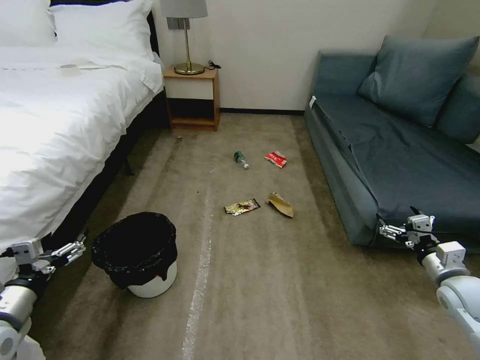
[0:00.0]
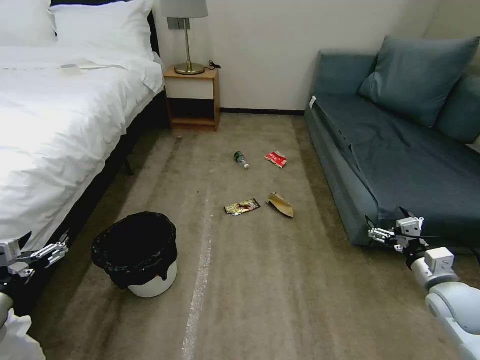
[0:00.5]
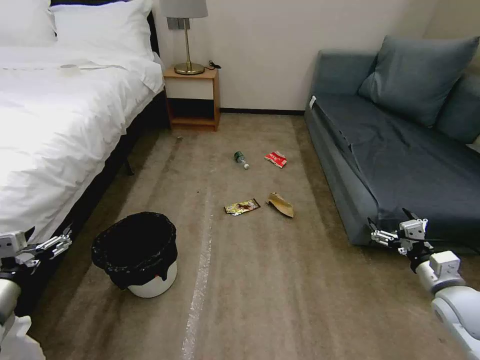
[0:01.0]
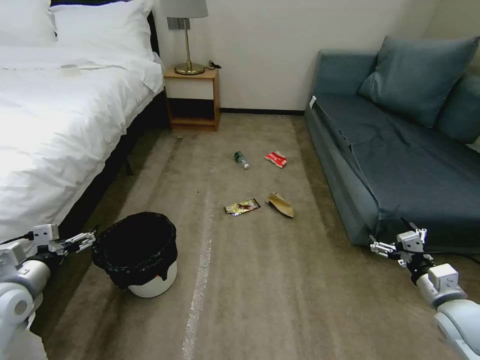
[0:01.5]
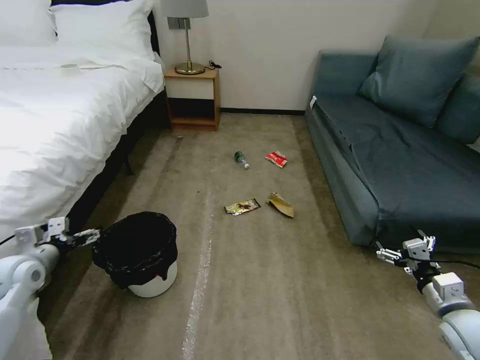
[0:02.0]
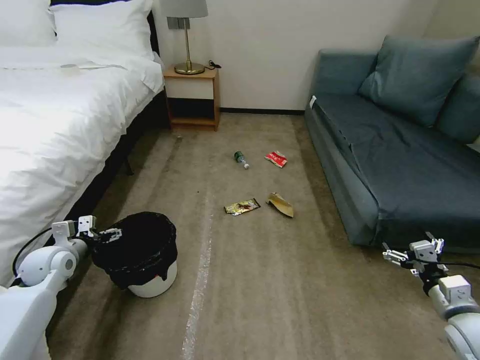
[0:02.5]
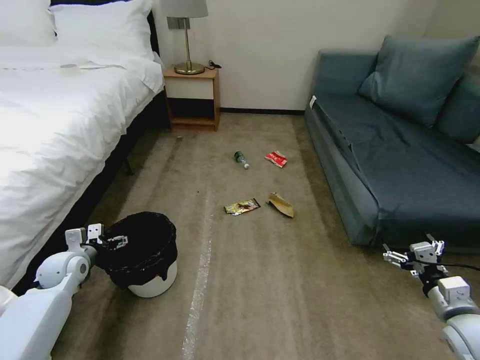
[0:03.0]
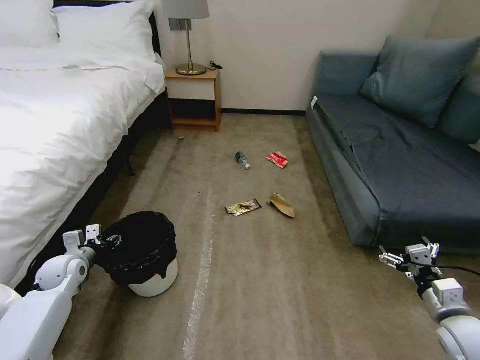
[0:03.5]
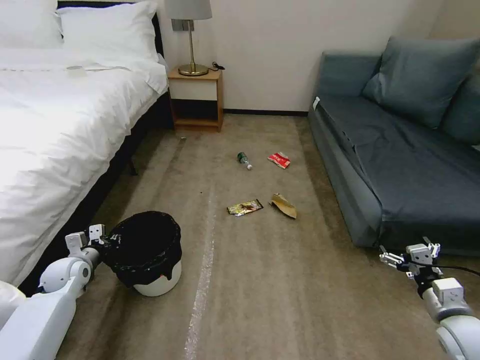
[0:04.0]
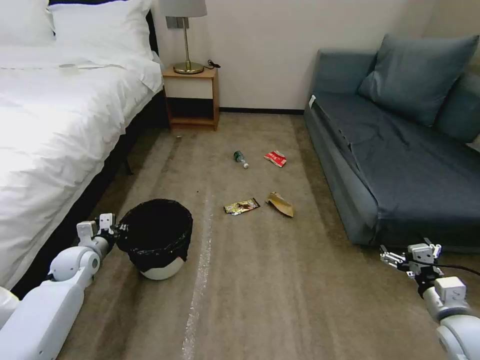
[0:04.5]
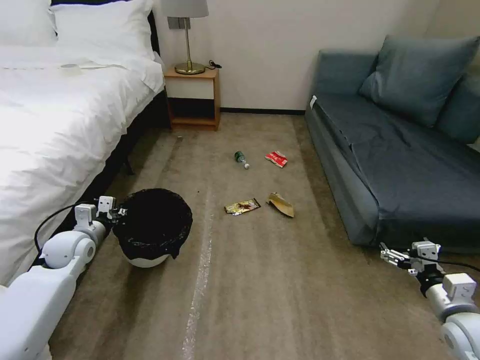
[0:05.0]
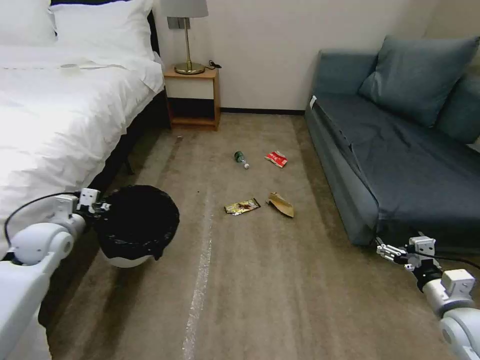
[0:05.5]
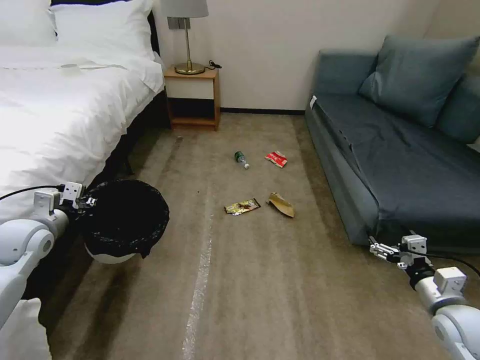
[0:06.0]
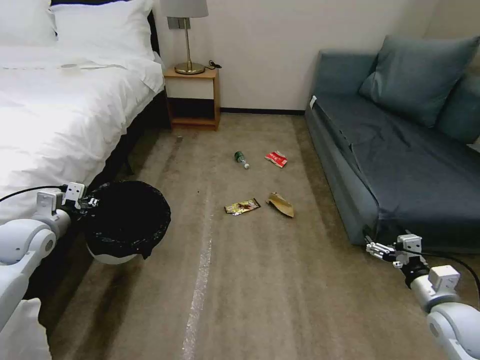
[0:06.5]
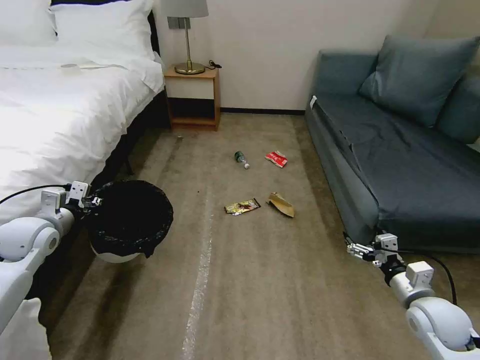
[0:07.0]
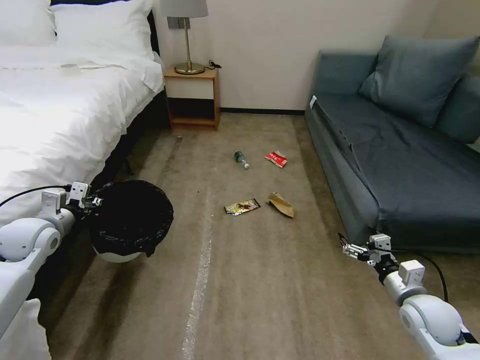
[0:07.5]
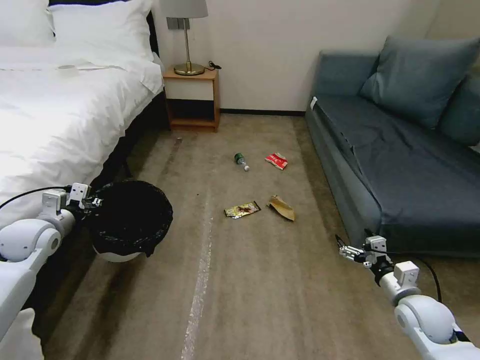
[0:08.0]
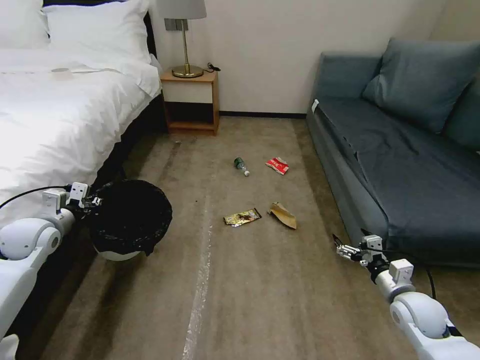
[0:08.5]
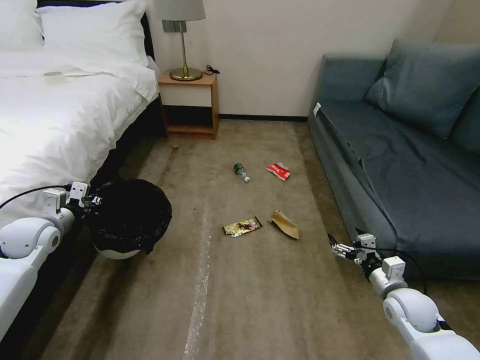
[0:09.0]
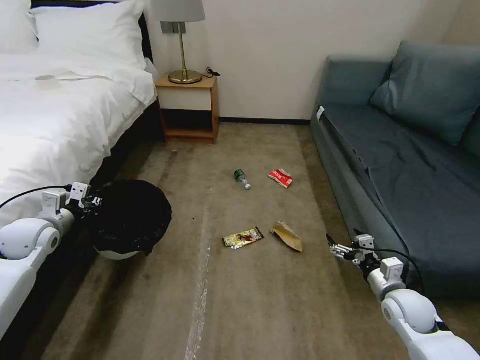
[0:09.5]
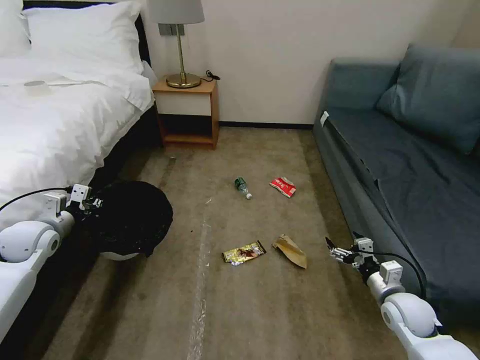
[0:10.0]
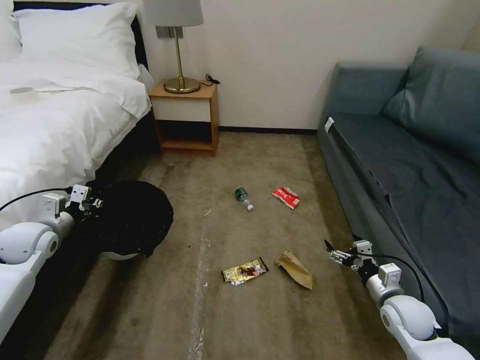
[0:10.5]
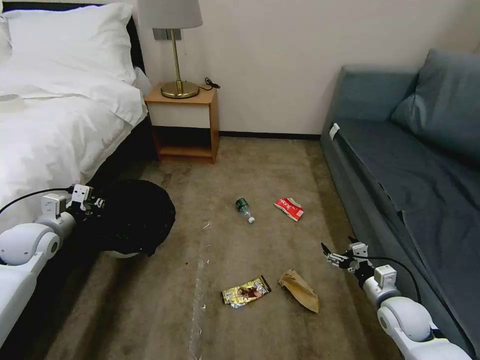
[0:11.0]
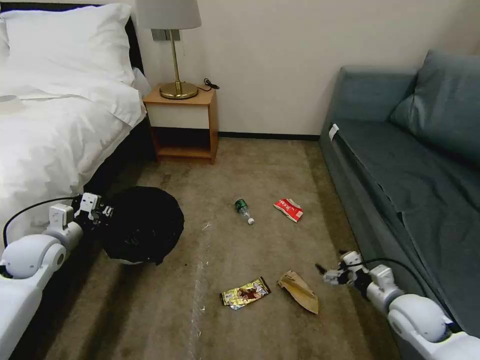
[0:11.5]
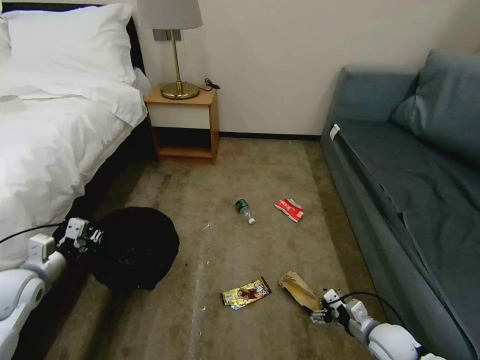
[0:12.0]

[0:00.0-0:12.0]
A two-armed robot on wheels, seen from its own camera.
Task of the whole recording: Pick up the trash bin, then pick up the garbage on the floor and place it into the trash bin.
0:02.0 to 0:04.0: The left gripper travels downward and forward by approximately 10 cm, and closes.
0:04.0 to 0:06.0: The left gripper heads upward, covering approximately 15 cm.
0:06.0 to 0:08.0: The right gripper shifts by approximately 5 cm.
0:10.0 to 0:12.0: The left gripper moves backward, some 10 cm. The right gripper travels downward by roughly 5 cm.

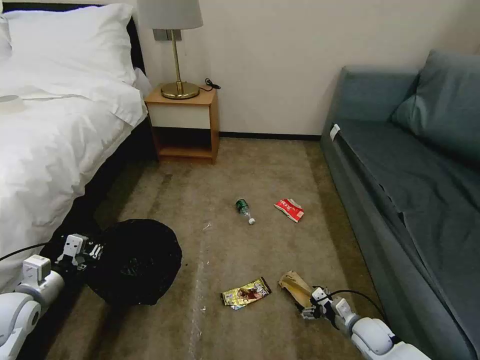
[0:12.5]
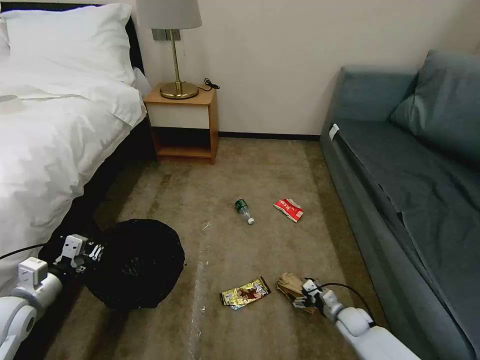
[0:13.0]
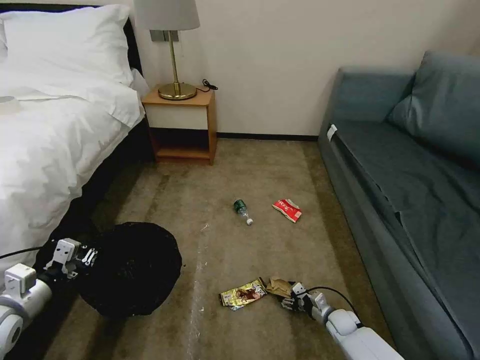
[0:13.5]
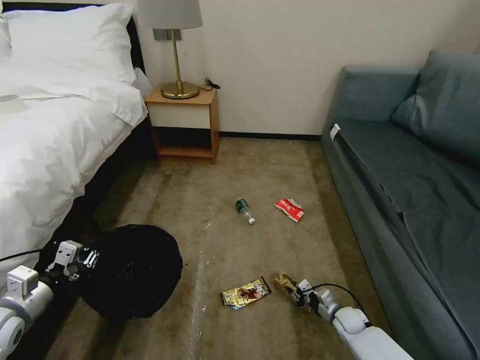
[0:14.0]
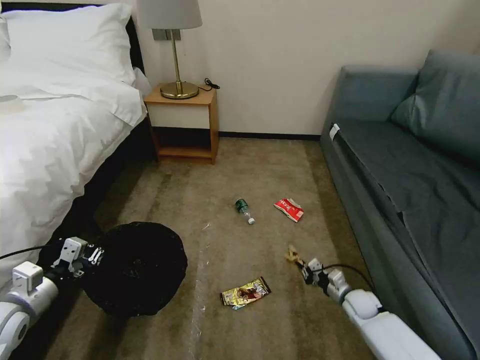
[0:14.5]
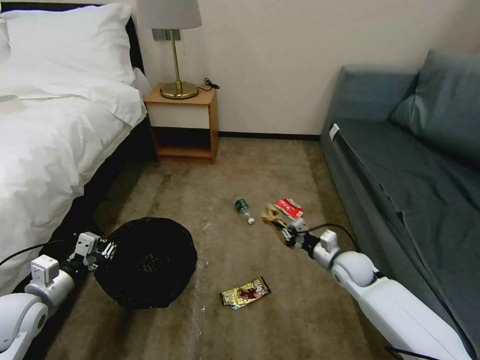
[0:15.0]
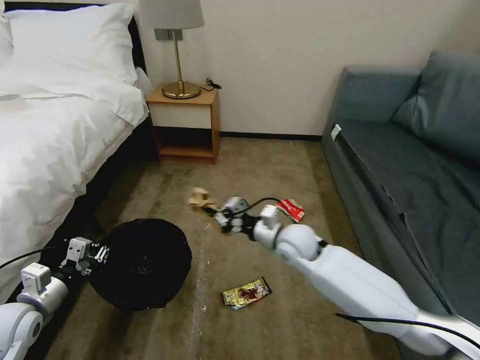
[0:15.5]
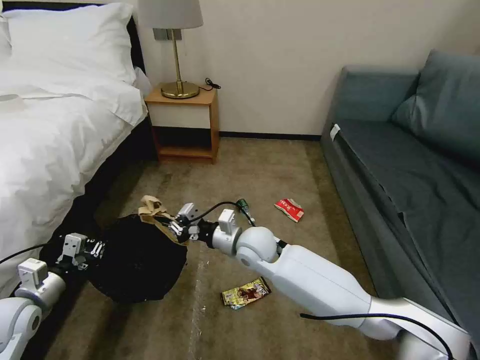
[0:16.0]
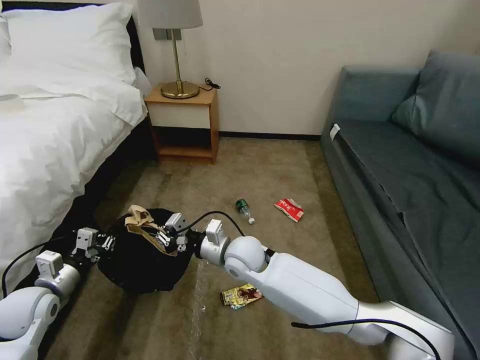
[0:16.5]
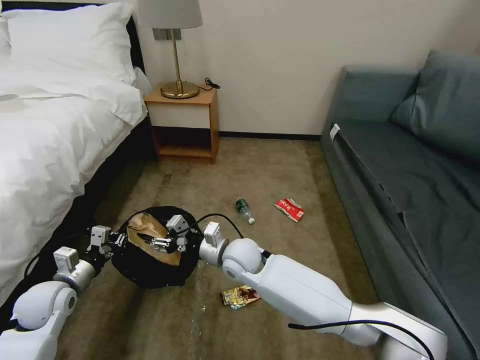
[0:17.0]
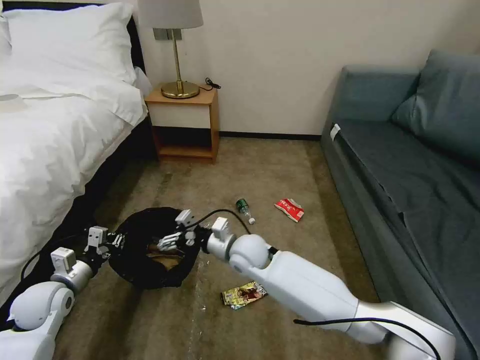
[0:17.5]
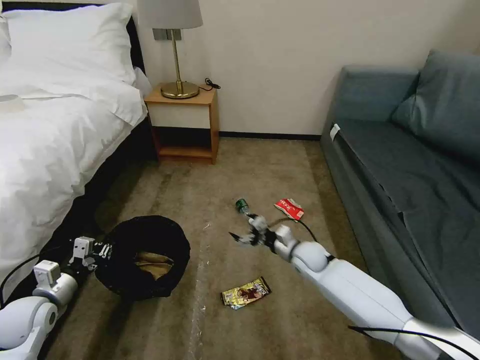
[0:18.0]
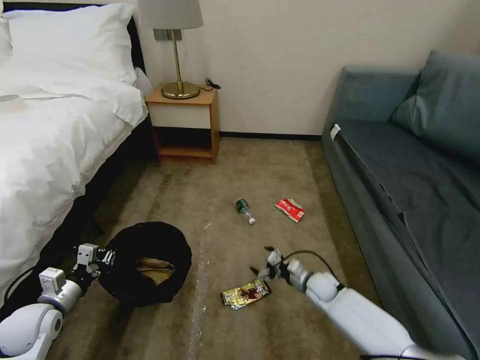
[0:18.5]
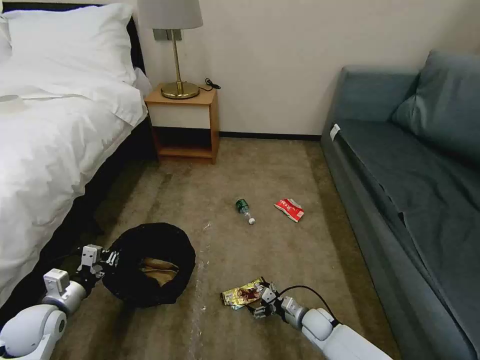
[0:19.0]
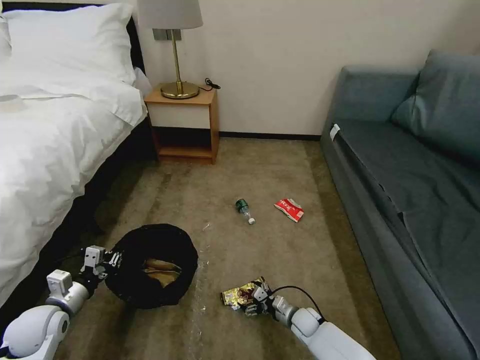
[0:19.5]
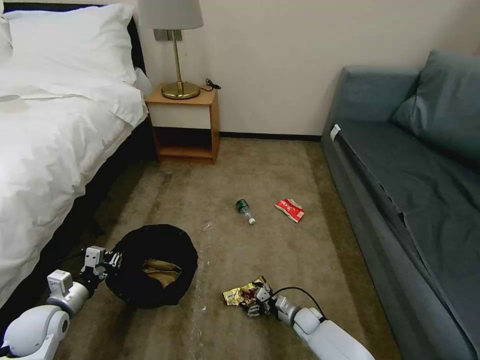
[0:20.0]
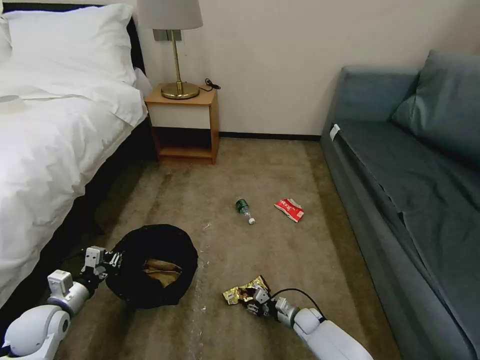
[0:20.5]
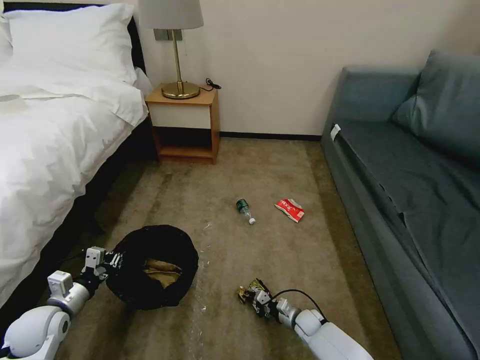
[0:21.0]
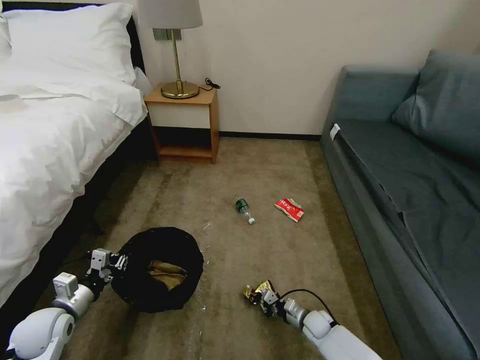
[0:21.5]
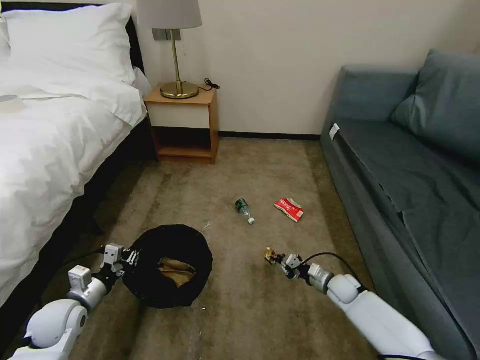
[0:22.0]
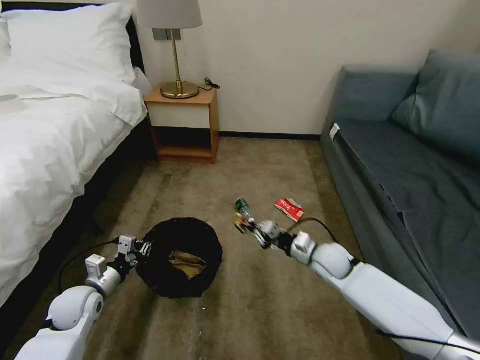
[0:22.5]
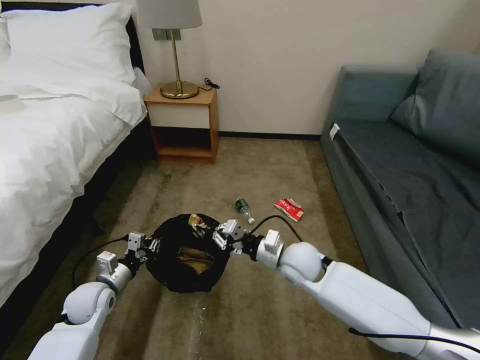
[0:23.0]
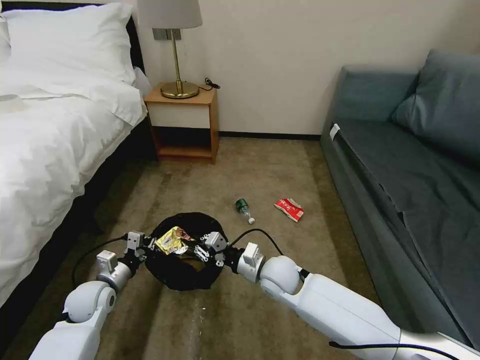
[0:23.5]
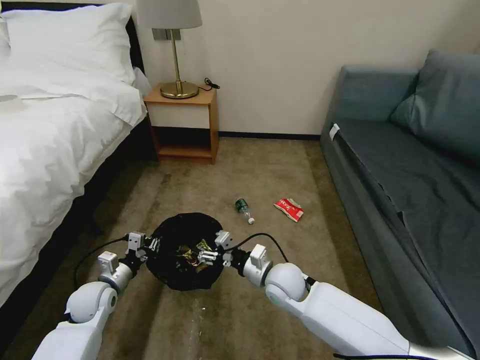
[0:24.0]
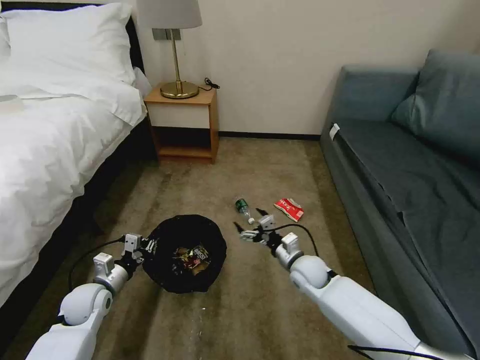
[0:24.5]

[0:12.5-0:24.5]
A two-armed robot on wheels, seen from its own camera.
Task of the whole recording: Pick up the trash bin, then pick up the garbage on the floor and place it into the trash bin.
0:12.5 to 0:14.5: The right gripper is displaced forward by roughly 10 cm, travels downward and back again, approximately 10 cm each way, and closes.
0:14.5 to 0:16.5: The left gripper moves about 5 cm. Meanwhile the right gripper moves to the left and upward, approximately 40 cm.
0:16.5 to 0:18.5: The right gripper goes some 30 cm to the right and downward, and opens its fingers.
0:18.5 to 0:20.5: The right gripper is displaced downward and backward by roughly 15 cm, and closes.
0:20.5 to 0:22.5: The right gripper travels upward by roughly 25 cm, and closes up. The left gripper travels to the right by roughly 5 cm.
0:22.5 to 0:24.5: The right gripper goes about 5 cm to the left, and opens up.

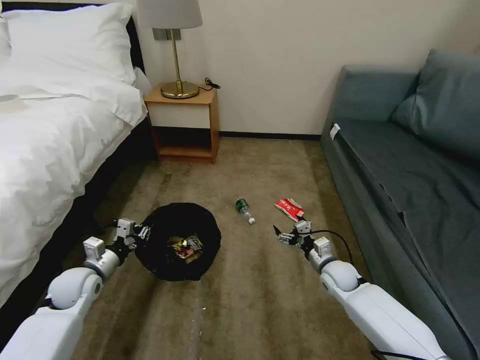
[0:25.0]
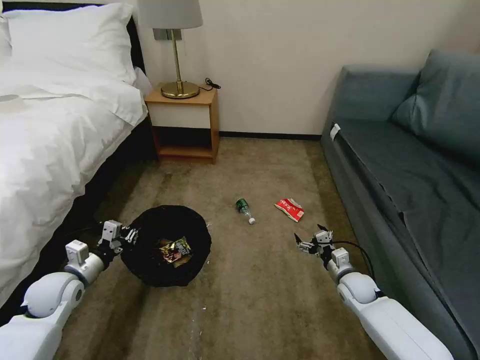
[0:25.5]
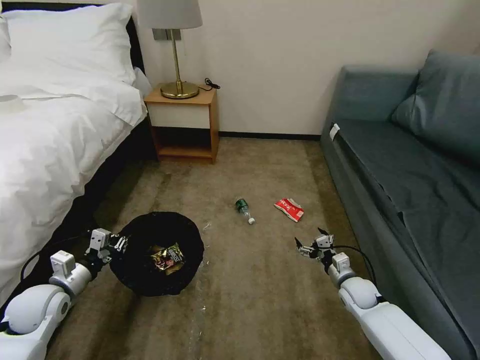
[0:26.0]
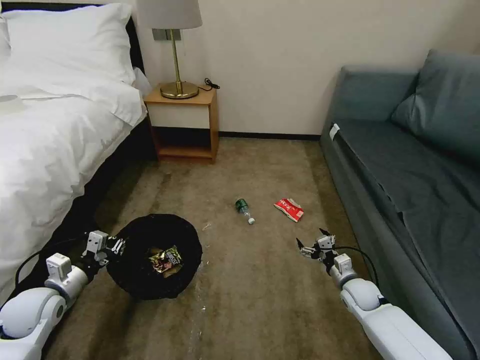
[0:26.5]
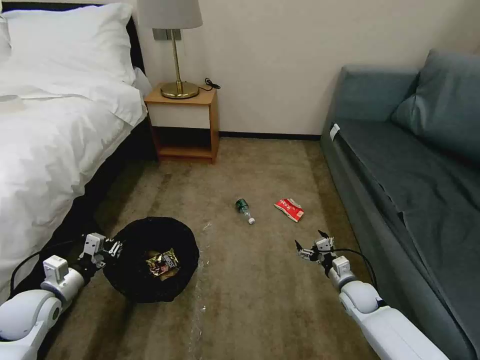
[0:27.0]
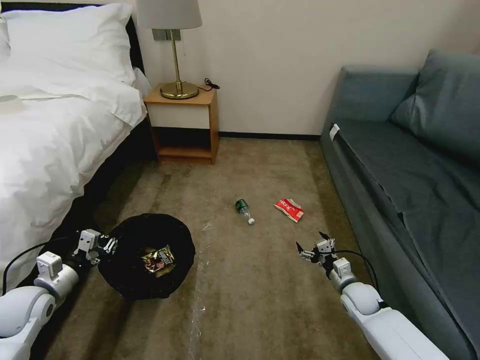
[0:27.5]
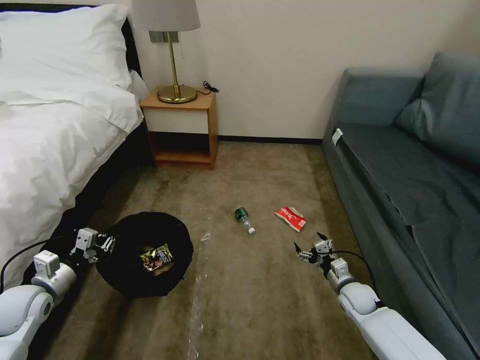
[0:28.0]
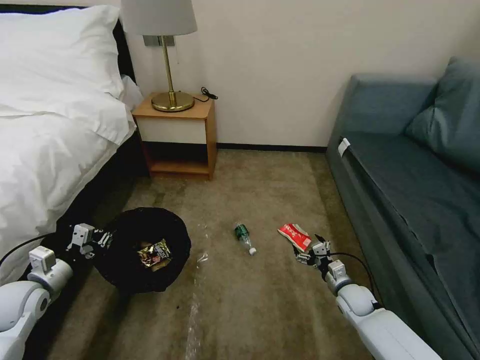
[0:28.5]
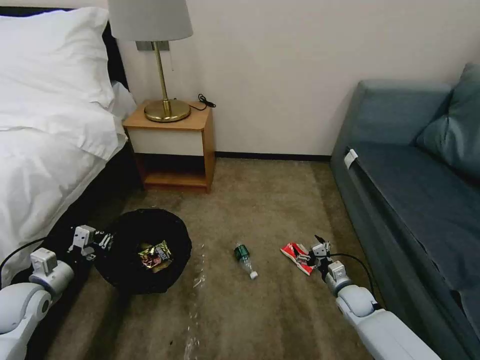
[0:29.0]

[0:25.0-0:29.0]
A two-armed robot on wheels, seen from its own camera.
Task of the whole recording: Pick up the trash bin, then pick up the garbage on the floor and place it into the trash bin.
0:25.0 to 0:27.0: The left gripper is displaced backward and to the left by approximately 10 cm. Meanwhile the right gripper heads to the right, covering about 5 cm.
